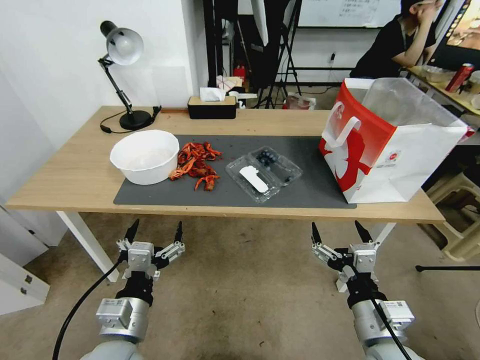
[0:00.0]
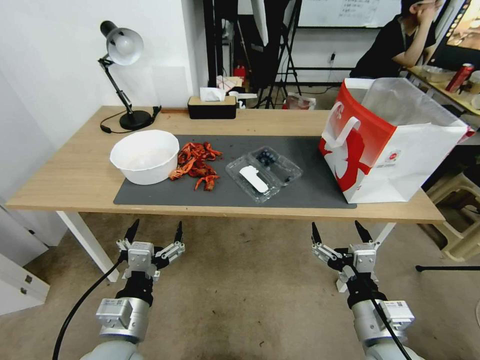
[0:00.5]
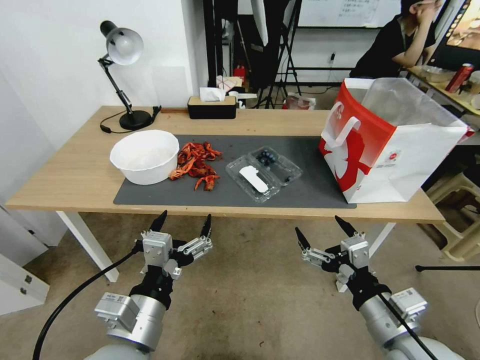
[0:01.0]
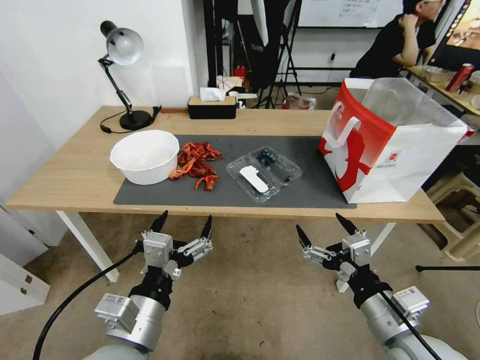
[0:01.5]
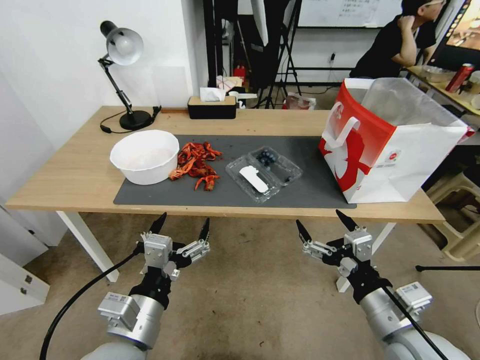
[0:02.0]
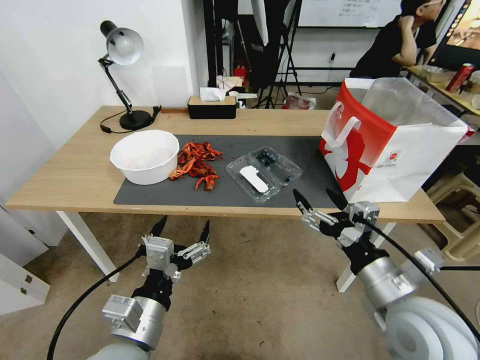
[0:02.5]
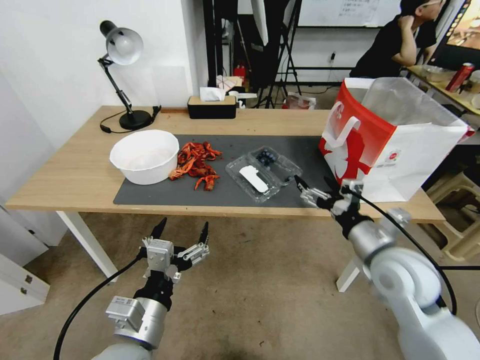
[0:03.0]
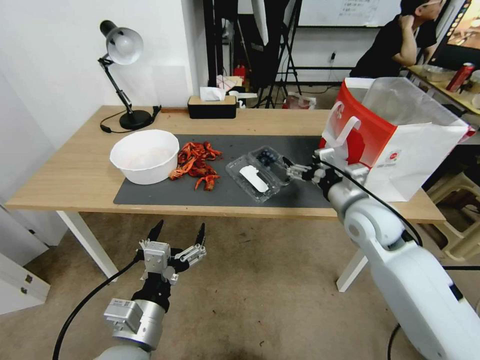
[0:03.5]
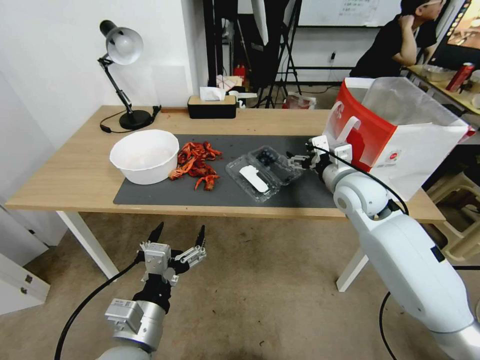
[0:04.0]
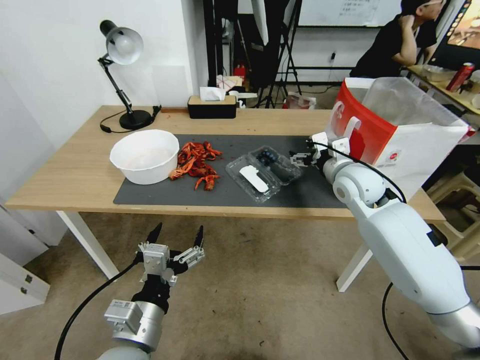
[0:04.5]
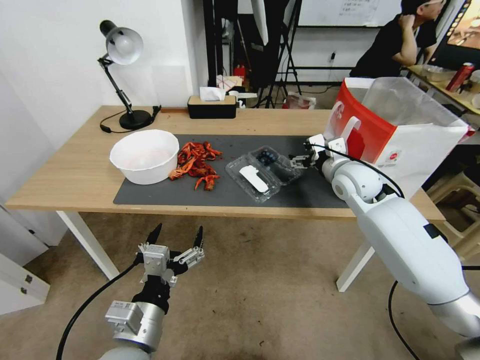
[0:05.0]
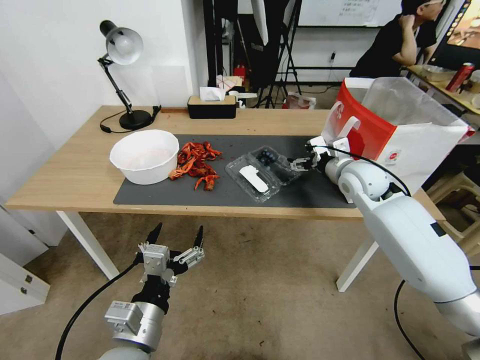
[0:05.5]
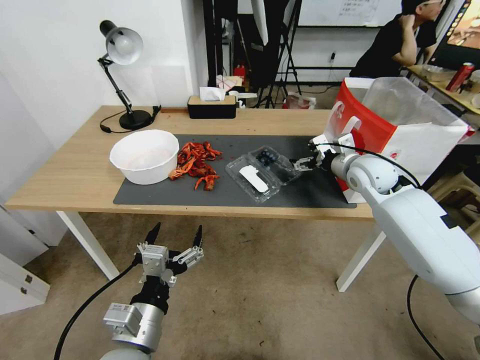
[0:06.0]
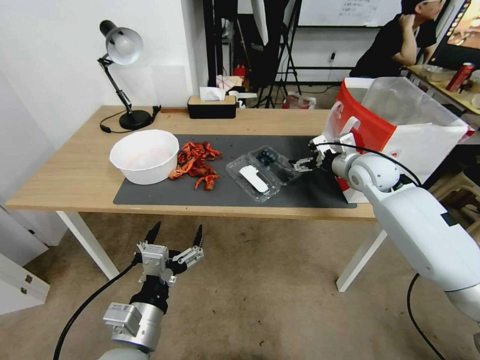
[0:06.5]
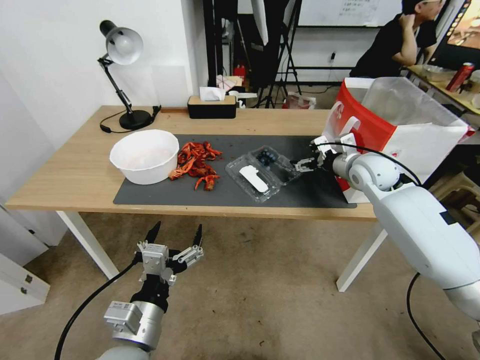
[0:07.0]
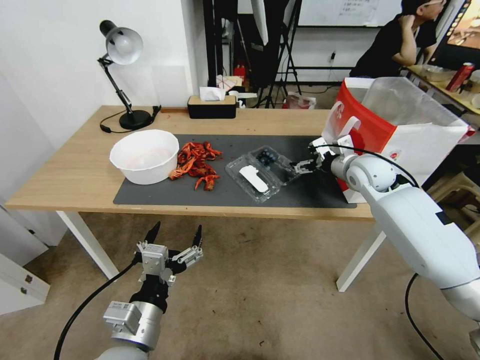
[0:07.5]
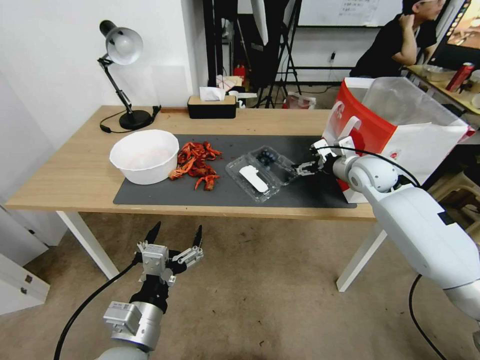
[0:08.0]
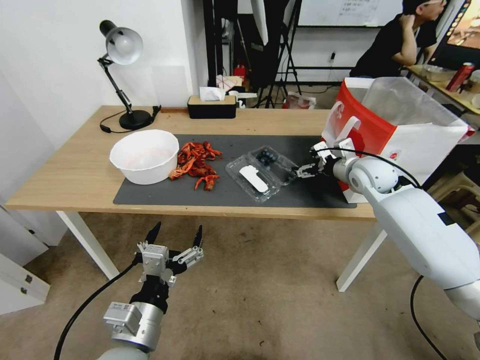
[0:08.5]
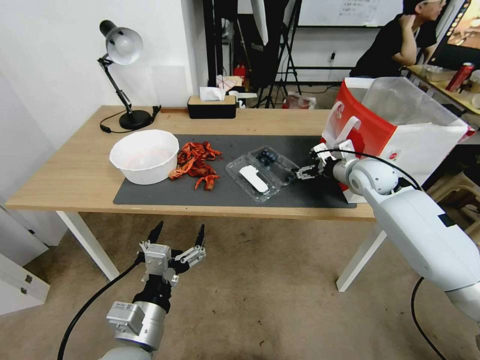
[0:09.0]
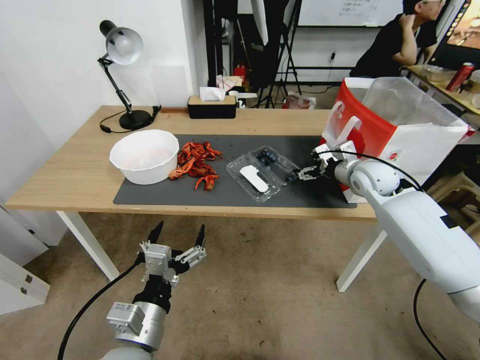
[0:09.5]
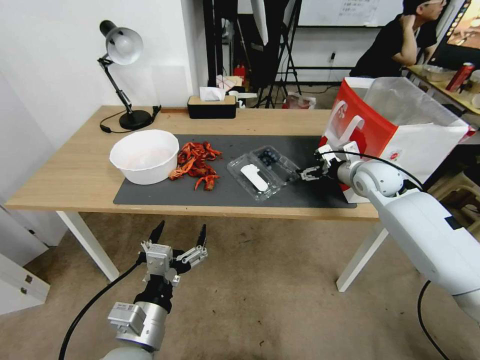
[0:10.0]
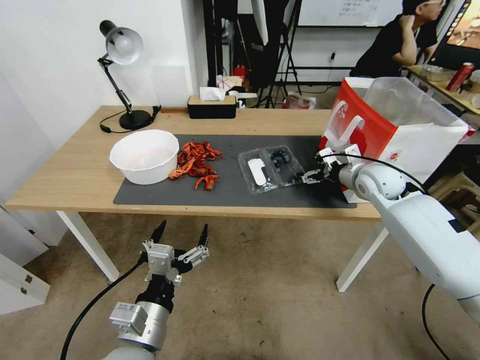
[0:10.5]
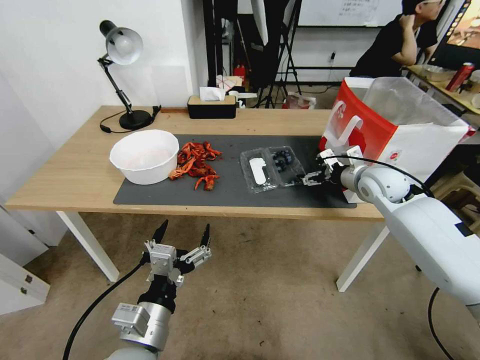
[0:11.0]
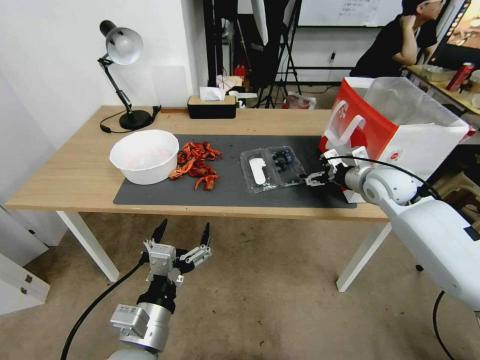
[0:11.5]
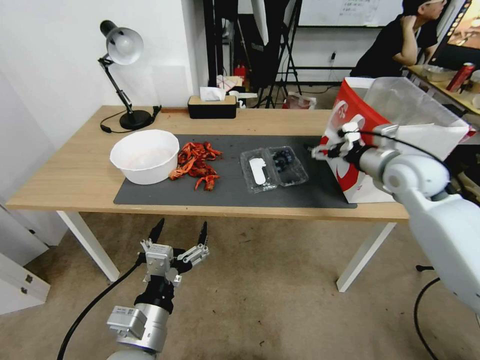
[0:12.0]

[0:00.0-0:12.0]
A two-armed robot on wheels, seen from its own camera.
Task of the whole recording: Close the takeout container lid, then place the container into the takeout bag.
0:02.0 to 0:04.0: The right gripper moves forward, roughly 30 cm.
0:04.0 to 0:06.0: The right gripper heads forward and to the right, covering about 10 cm.
0:06.0 to 0:10.0: The grippers move only a little.
0:10.0 to 0:12.0: The right gripper moves upward and backward, roughly 10 cm.

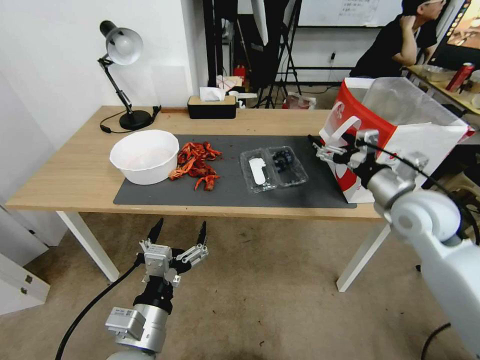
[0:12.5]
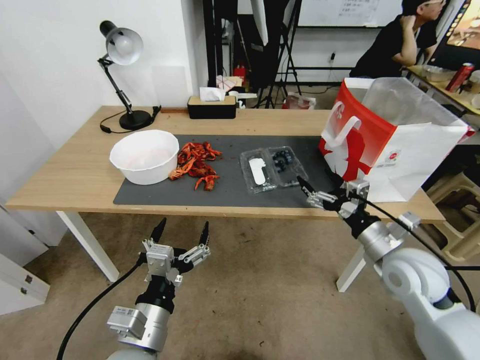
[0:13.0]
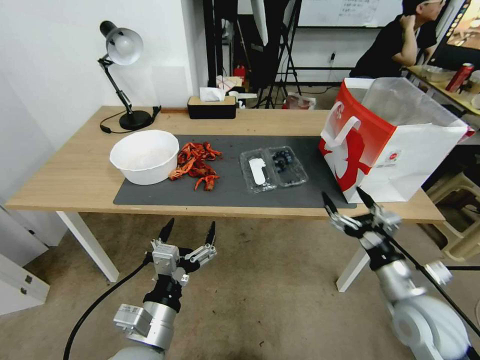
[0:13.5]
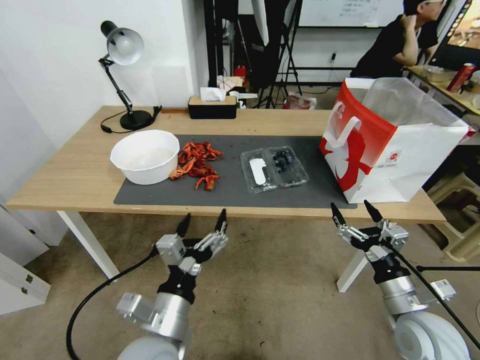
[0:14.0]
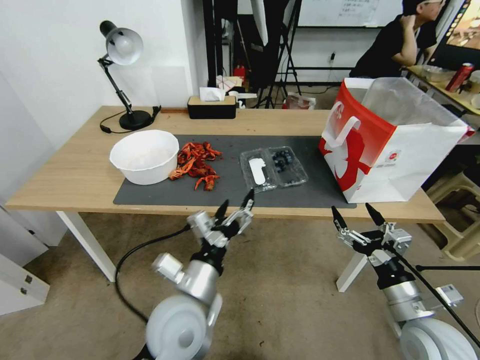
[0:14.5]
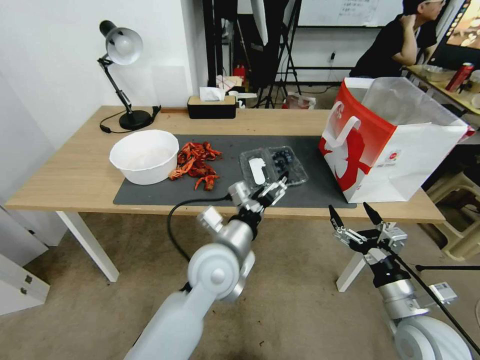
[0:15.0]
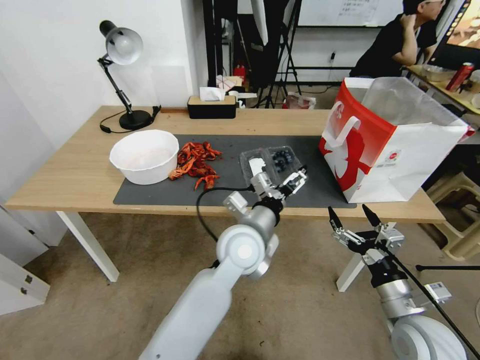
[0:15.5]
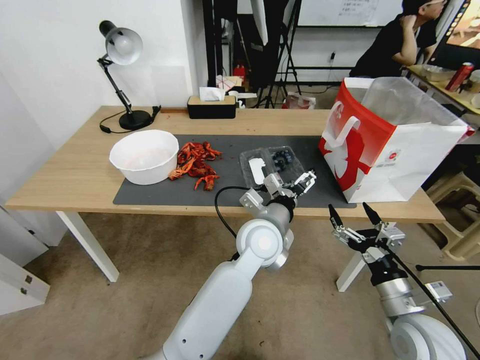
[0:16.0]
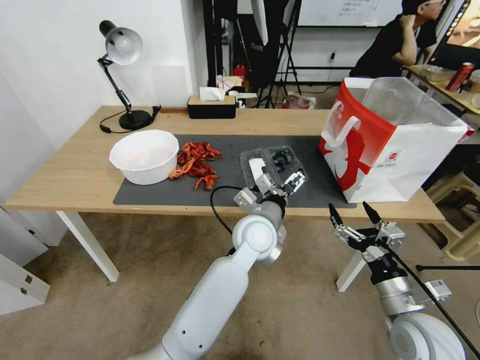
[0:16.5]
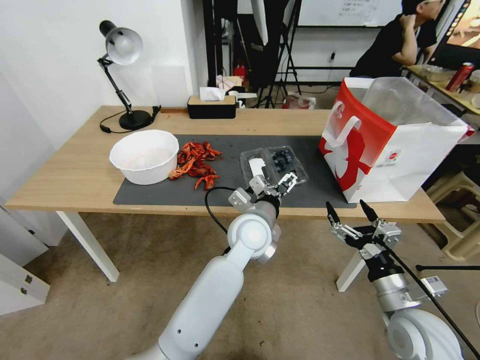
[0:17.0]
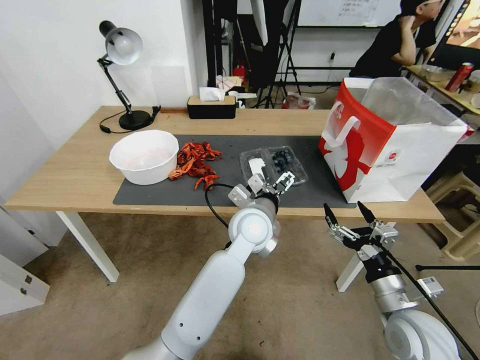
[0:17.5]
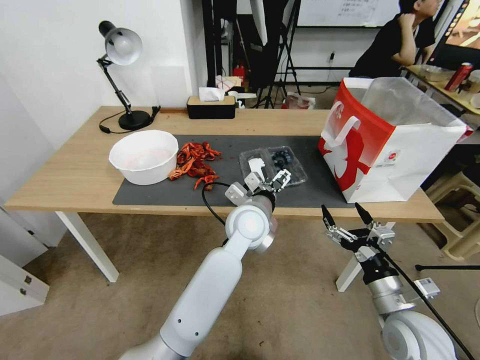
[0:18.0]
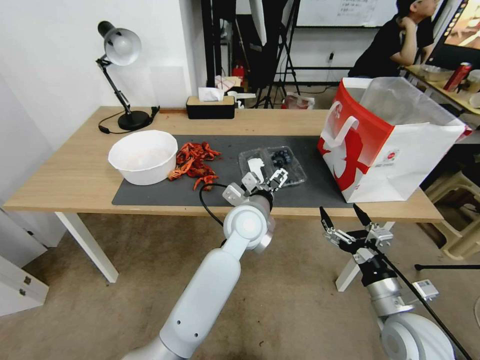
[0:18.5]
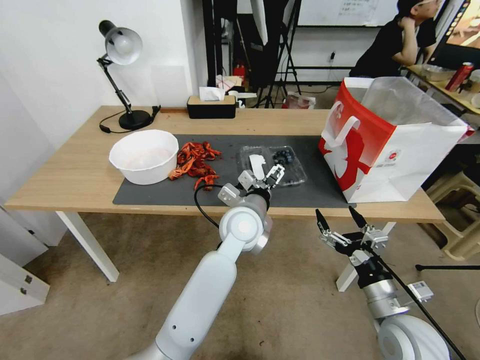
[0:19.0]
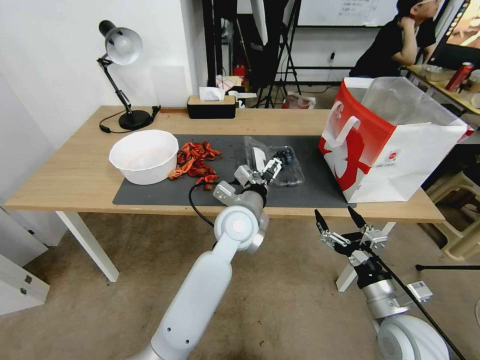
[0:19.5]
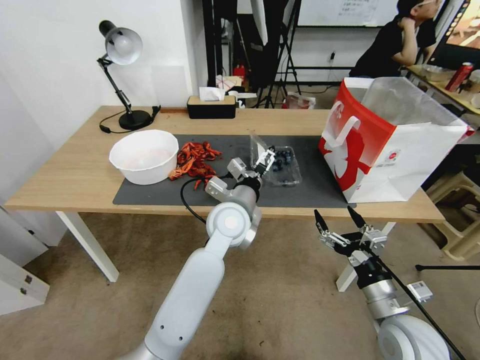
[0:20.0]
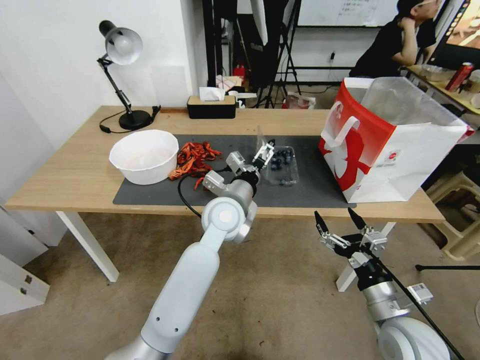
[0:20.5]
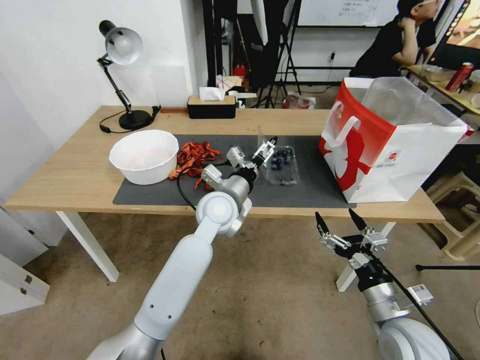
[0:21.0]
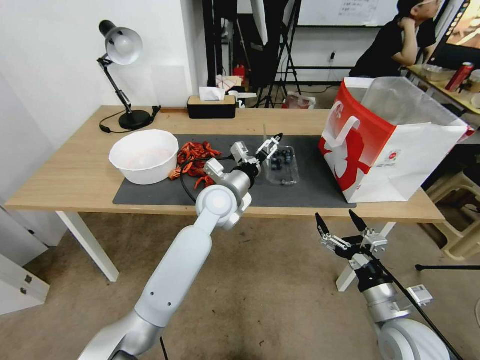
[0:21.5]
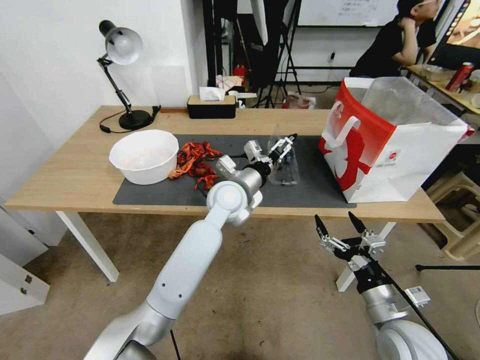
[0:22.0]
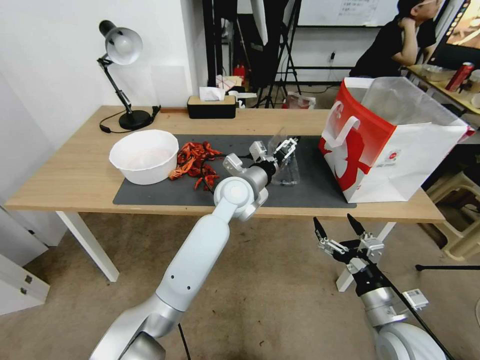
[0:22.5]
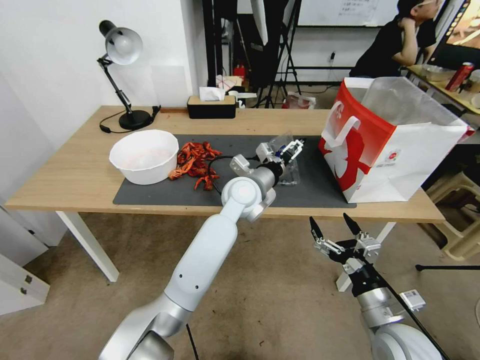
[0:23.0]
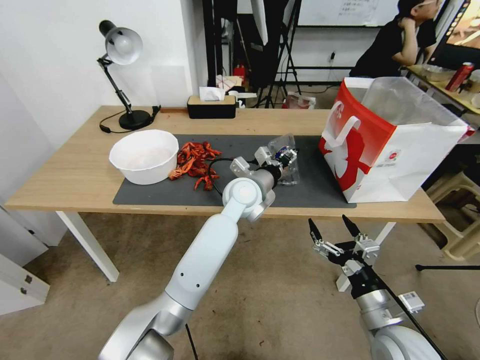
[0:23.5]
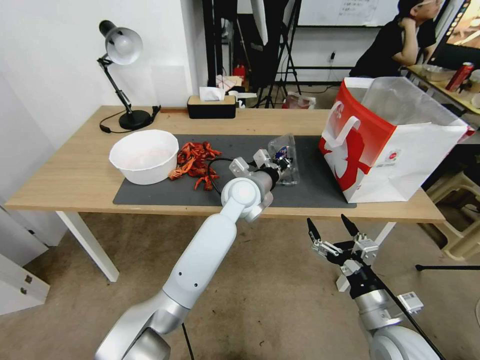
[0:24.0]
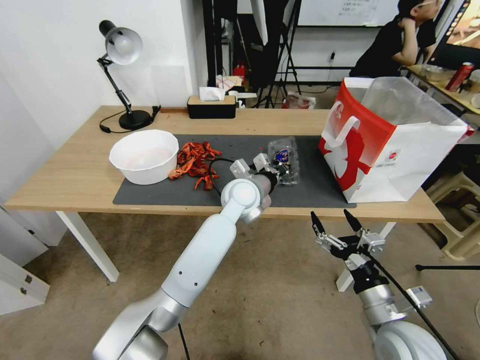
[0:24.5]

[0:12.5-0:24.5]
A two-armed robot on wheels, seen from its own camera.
Task of the whole recording: Close the takeout container lid, then place the container into the takeout bag.
0:12.5 to 0:14.5: The right gripper goes about 20 cm backward and downward, while the left gripper is displaced forward and to the right by some 10 cm.
0:14.5 to 0:16.5: The left gripper is displaced forward and to the right by approximately 20 cm.
0:16.5 to 0:18.5: The grippers move only a little.
0:18.5 to 0:20.5: The left gripper shifts by some 5 cm.
0:20.5 to 0:22.5: The left gripper travels forward by approximately 5 cm.
0:22.5 to 0:24.5: The left gripper closes up.

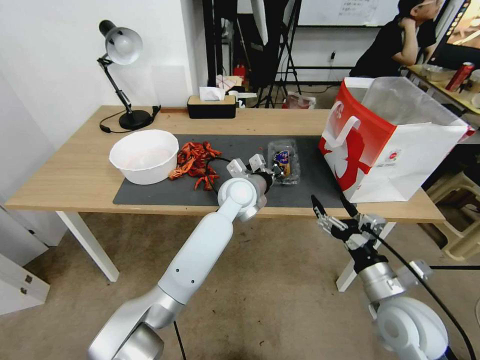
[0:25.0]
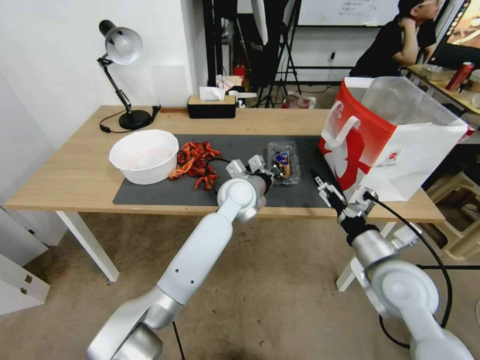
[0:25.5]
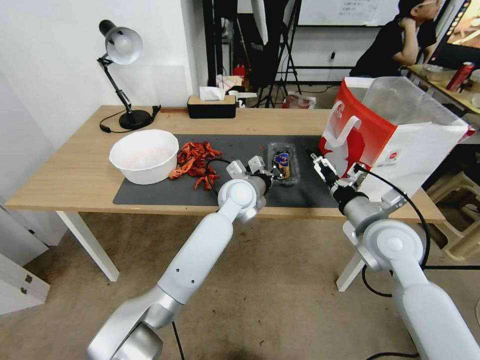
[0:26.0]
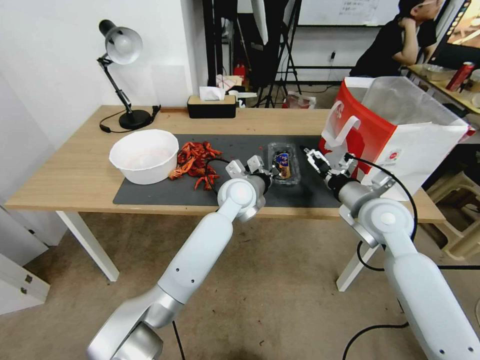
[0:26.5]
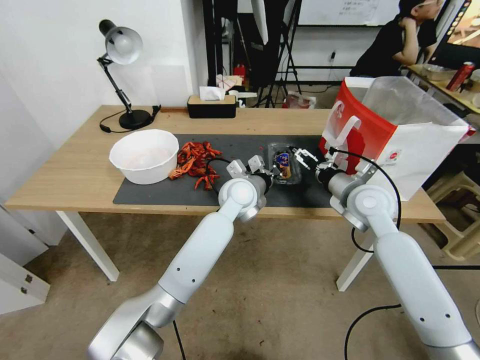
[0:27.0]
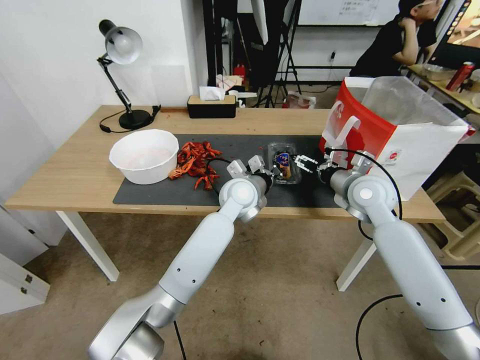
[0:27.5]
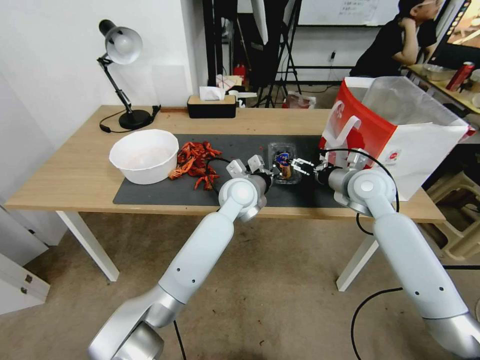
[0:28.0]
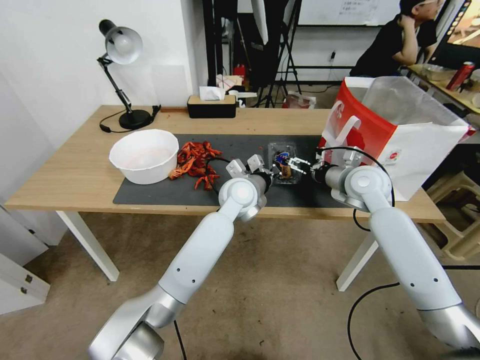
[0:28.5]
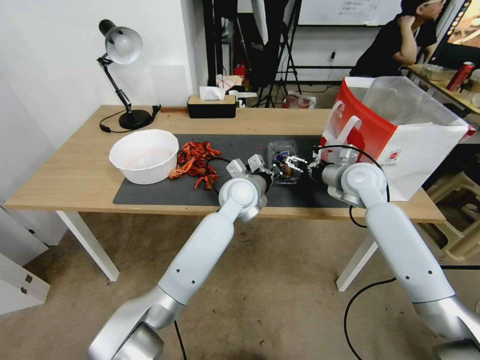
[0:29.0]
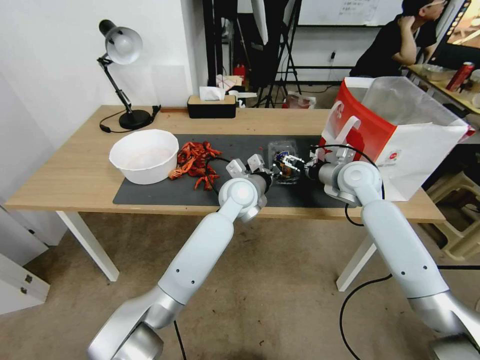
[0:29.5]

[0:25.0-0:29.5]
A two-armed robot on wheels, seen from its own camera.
Task of the whole recording: Close the takeout container lid, then place the container into the takeout bag.
0:25.0 to 0:27.0: The right gripper travels forward by approximately 20 cm.
0:27.0 to 0:29.5: The right gripper is displaced forward by approximately 5 cm.
